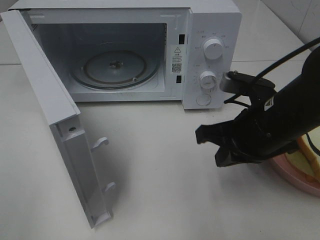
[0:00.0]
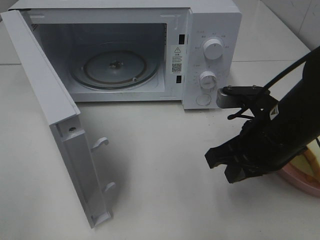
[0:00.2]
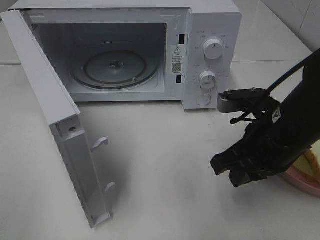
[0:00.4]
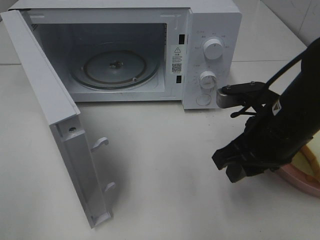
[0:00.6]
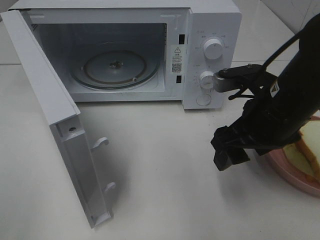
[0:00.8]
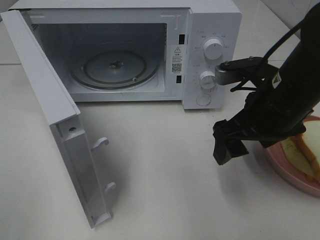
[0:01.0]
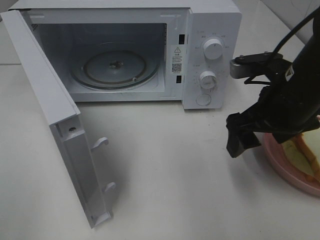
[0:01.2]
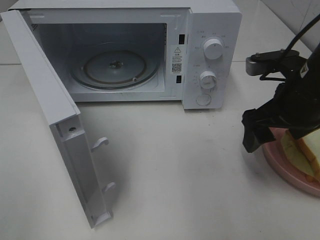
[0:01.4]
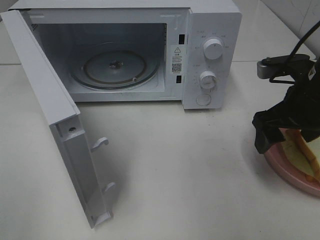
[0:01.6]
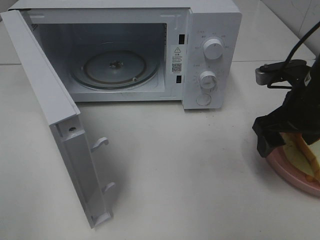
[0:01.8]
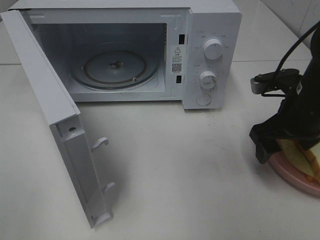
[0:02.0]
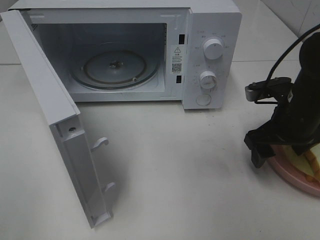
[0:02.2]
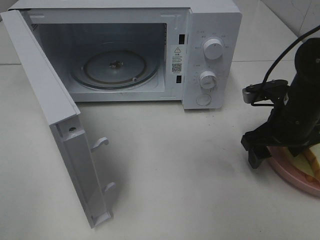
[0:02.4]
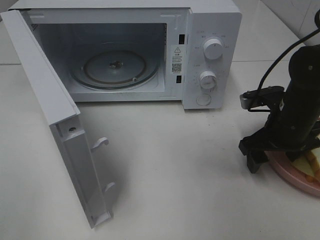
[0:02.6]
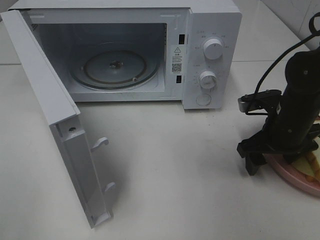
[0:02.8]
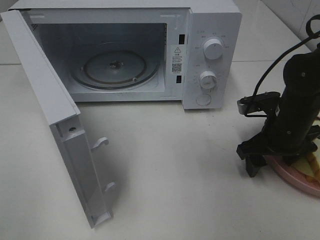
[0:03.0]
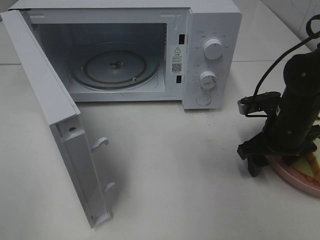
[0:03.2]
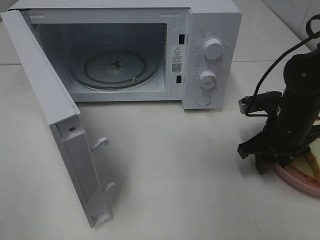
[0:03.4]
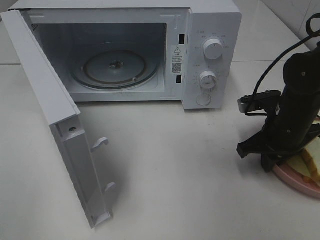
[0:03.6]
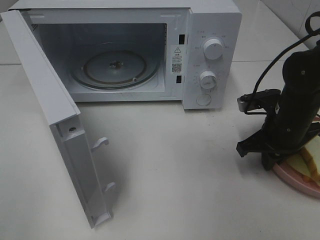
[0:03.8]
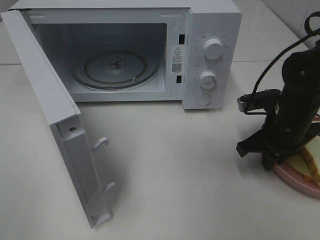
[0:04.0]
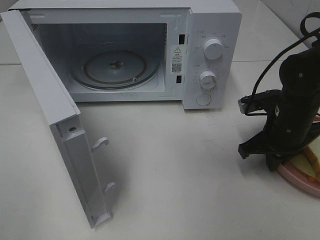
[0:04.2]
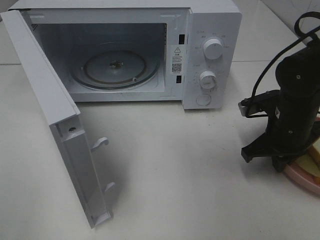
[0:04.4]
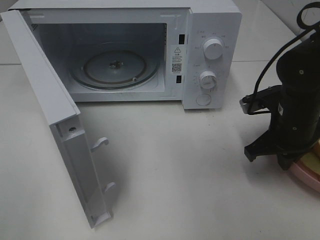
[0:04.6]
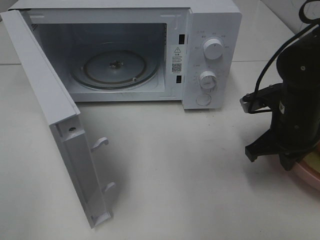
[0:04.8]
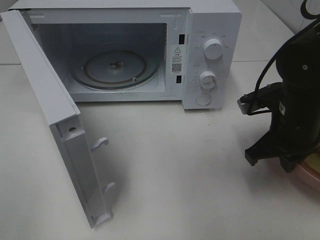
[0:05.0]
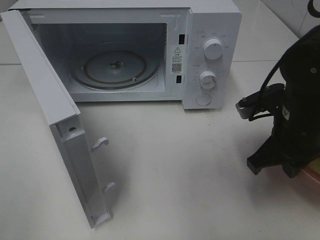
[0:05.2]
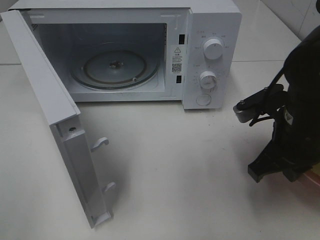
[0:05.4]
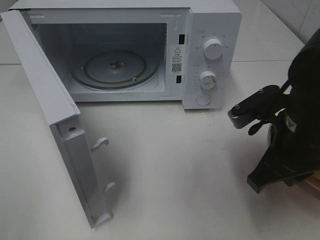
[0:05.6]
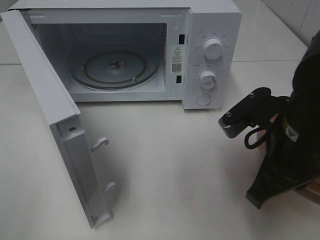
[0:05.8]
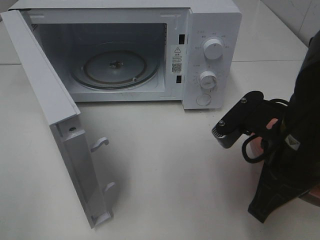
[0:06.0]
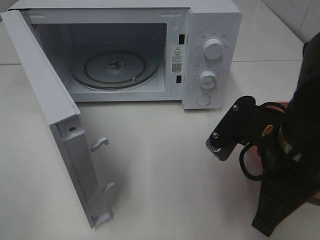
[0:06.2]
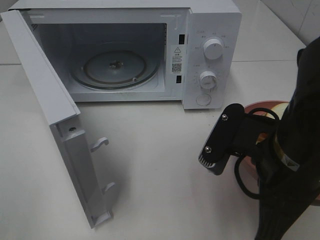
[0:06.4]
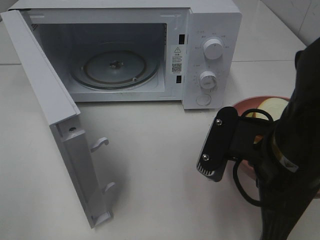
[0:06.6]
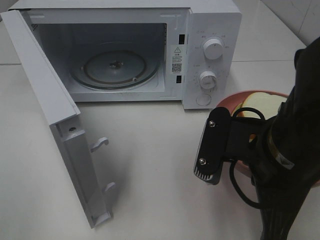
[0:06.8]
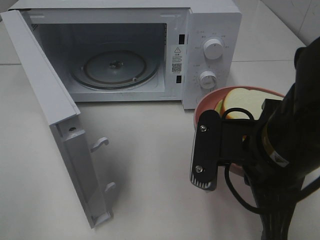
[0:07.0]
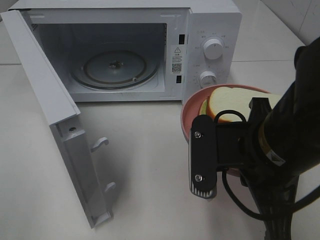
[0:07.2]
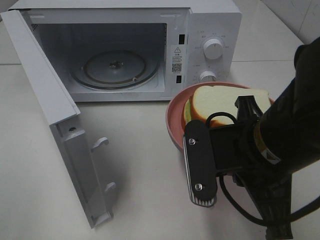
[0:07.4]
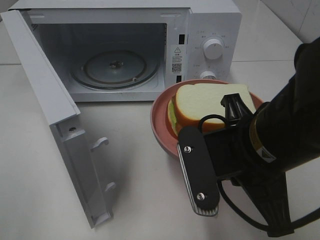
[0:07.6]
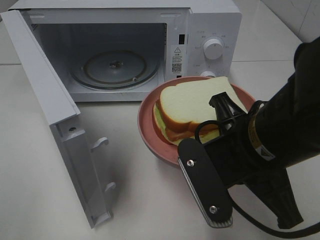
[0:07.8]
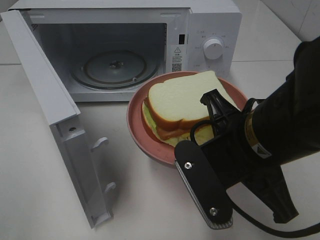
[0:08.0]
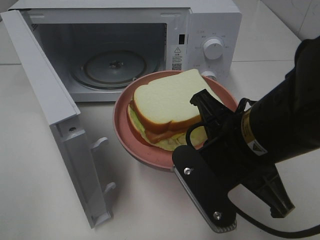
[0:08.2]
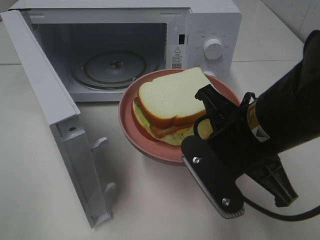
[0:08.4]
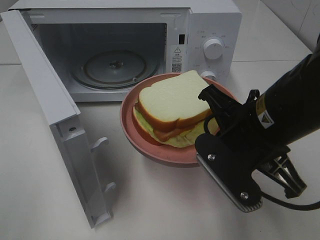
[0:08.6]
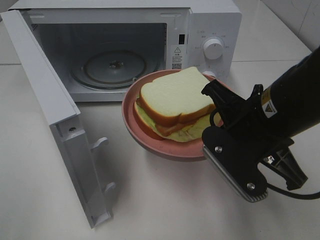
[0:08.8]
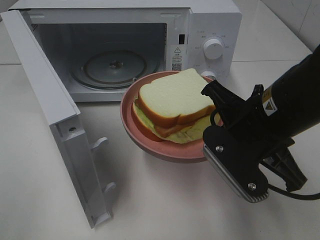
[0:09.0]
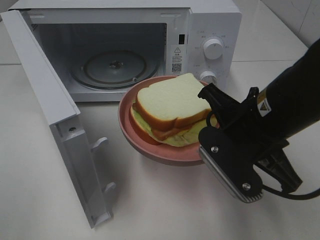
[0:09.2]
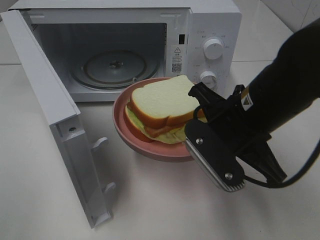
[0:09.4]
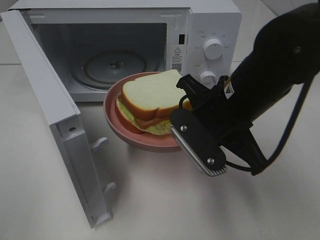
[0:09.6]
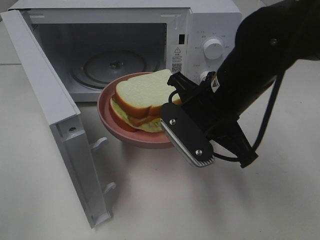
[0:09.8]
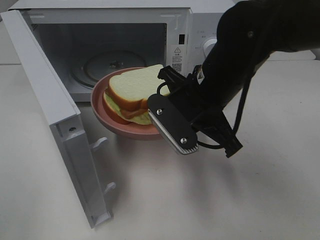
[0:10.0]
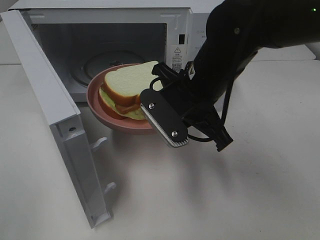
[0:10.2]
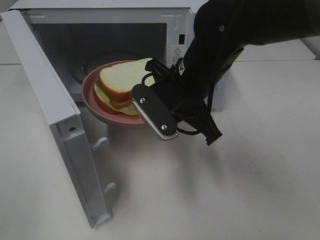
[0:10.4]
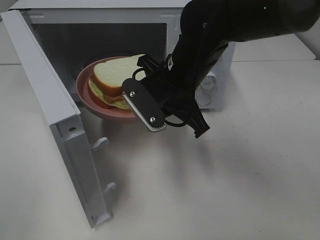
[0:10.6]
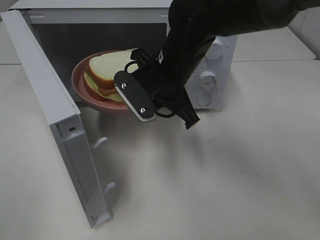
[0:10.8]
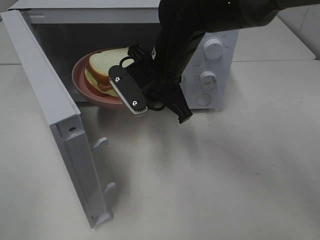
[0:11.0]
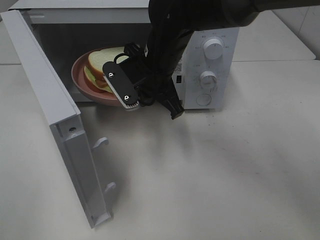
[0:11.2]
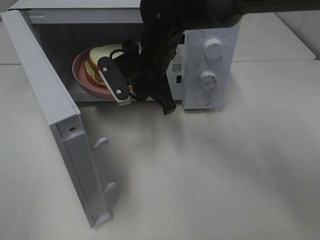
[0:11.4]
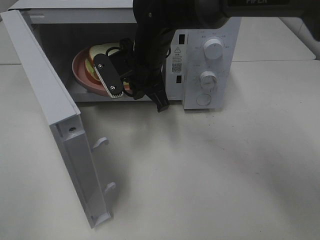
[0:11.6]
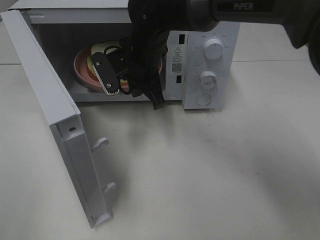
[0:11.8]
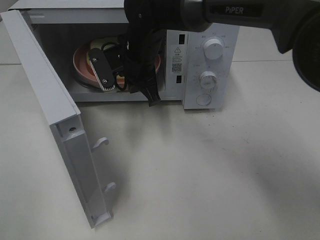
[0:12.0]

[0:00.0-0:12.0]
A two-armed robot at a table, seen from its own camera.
Task of the whole recording: Heat Sandwich.
Step, 0:00.0 to 0:04.8: Right hand: grab the plate with the sandwich.
0:00.0 to 0:01.6: The right gripper moves to the right, about 5 cm, and opens up.
0:01.6 to 0:03.0: The right gripper travels downward by roughly 10 cm.
0:03.0 to 0:04.4: The right gripper closes up.
0:04.4 to 0:06.0: The right gripper heads backward, upward and to the left, covering about 15 cm.
0:07.6 to 0:09.0: The right gripper shifts by some 5 cm.
0:09.0 to 0:10.4: The right gripper heads forward and to the left, covering about 10 cm.
0:10.4 to 0:12.0: The right gripper travels forward and to the left by approximately 15 cm.

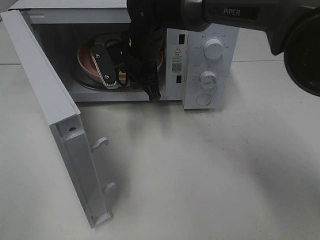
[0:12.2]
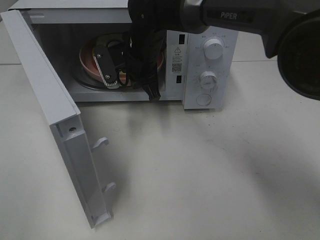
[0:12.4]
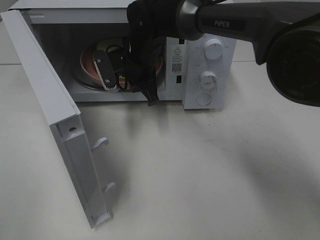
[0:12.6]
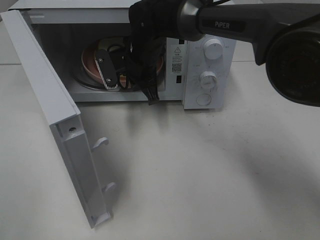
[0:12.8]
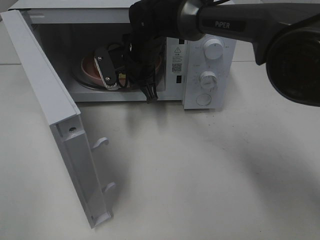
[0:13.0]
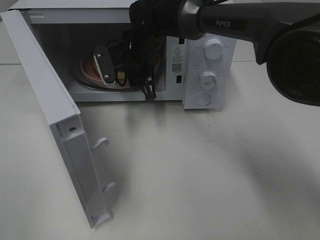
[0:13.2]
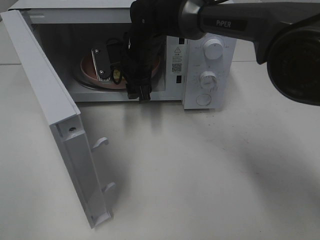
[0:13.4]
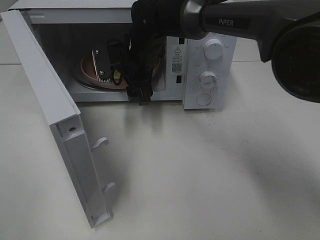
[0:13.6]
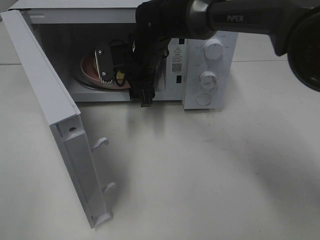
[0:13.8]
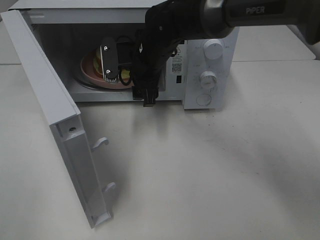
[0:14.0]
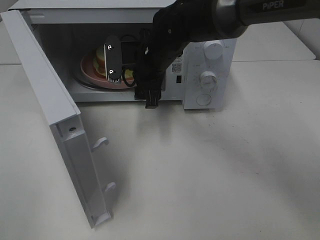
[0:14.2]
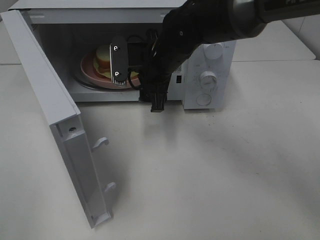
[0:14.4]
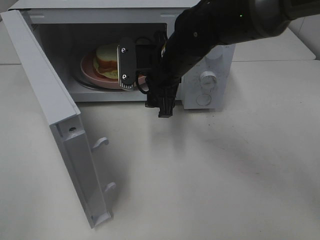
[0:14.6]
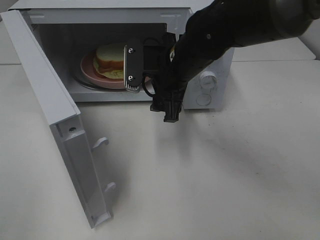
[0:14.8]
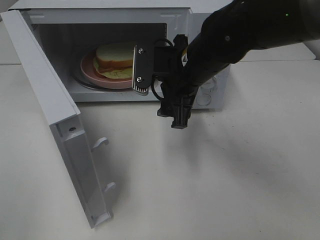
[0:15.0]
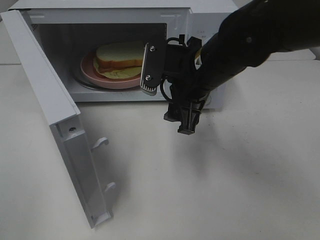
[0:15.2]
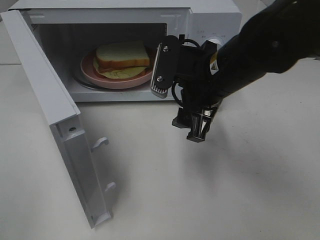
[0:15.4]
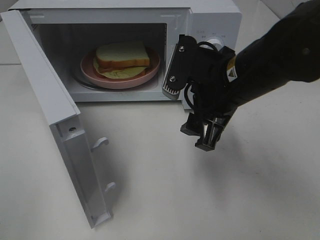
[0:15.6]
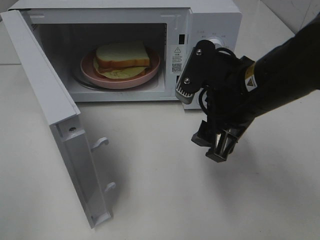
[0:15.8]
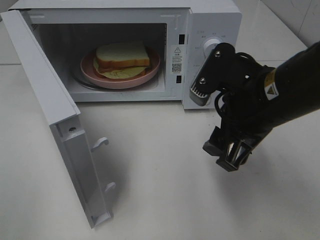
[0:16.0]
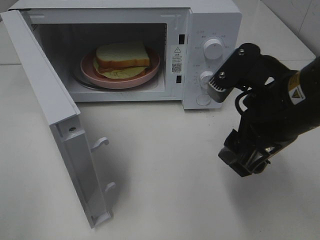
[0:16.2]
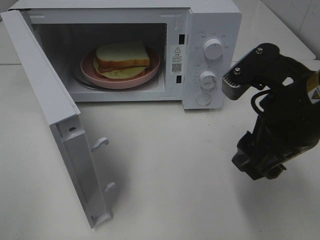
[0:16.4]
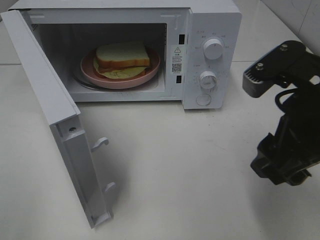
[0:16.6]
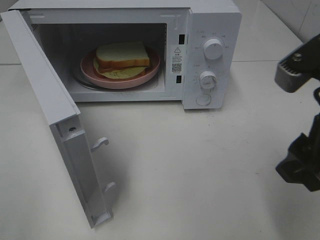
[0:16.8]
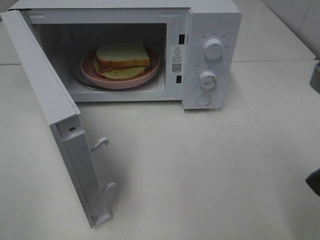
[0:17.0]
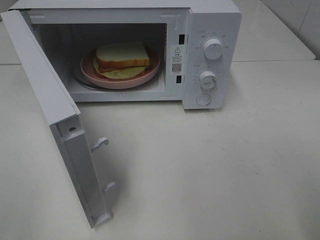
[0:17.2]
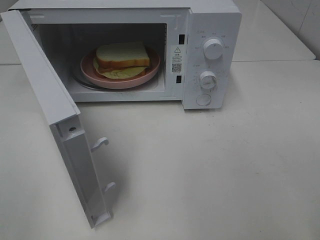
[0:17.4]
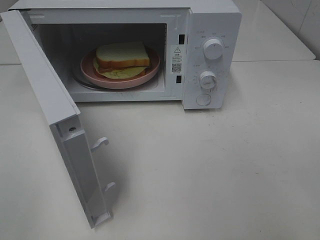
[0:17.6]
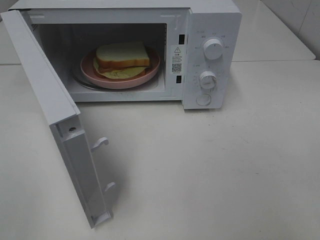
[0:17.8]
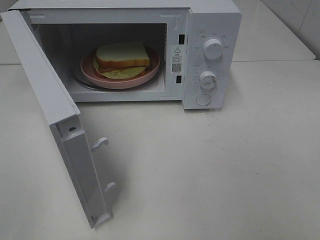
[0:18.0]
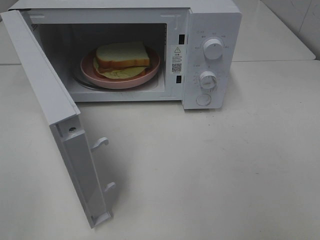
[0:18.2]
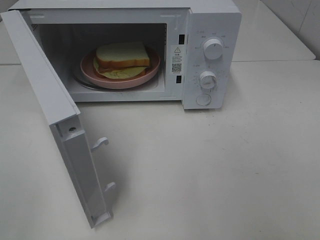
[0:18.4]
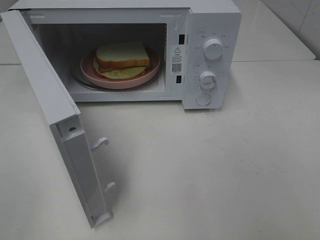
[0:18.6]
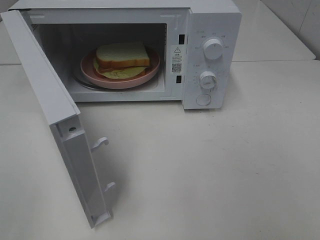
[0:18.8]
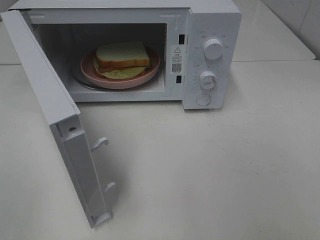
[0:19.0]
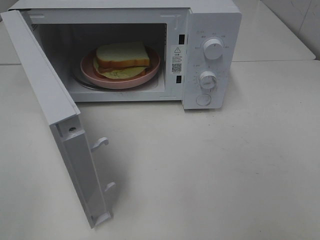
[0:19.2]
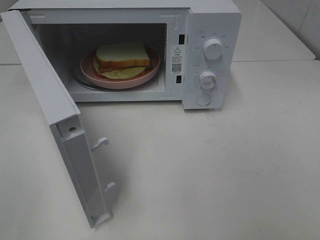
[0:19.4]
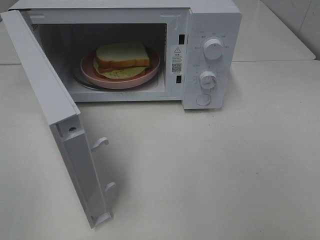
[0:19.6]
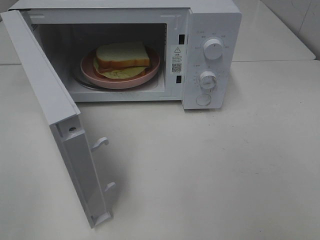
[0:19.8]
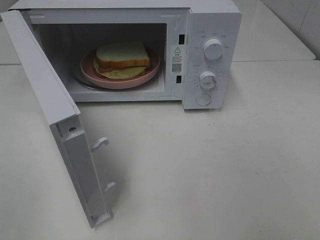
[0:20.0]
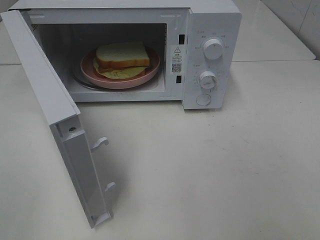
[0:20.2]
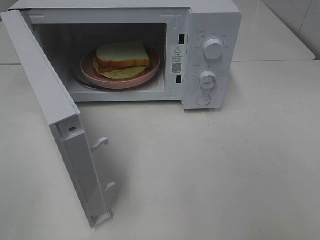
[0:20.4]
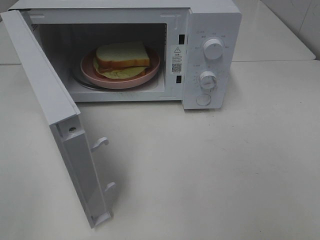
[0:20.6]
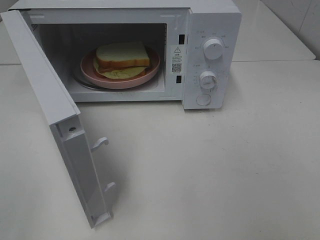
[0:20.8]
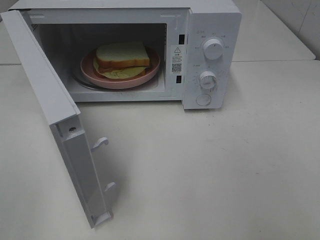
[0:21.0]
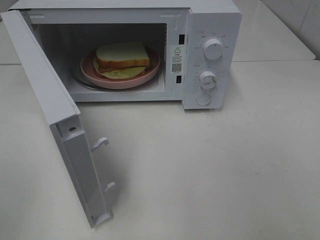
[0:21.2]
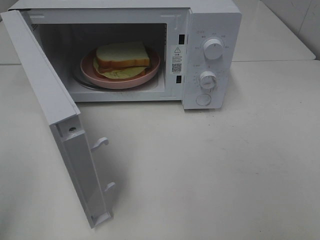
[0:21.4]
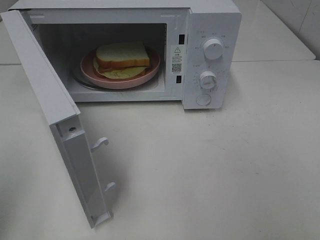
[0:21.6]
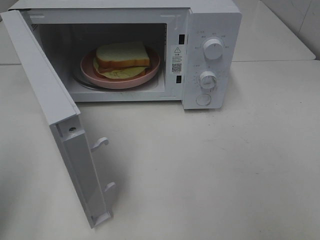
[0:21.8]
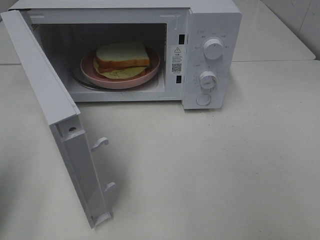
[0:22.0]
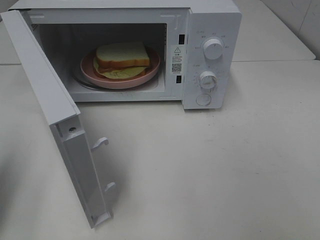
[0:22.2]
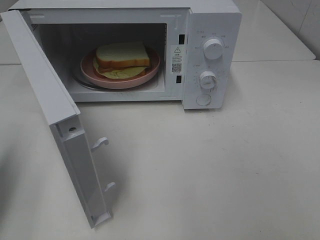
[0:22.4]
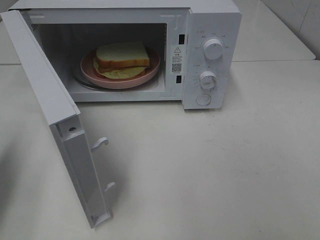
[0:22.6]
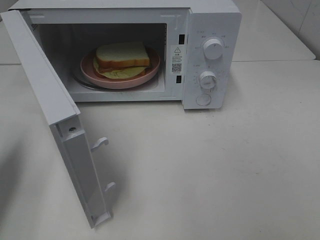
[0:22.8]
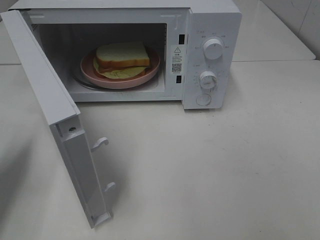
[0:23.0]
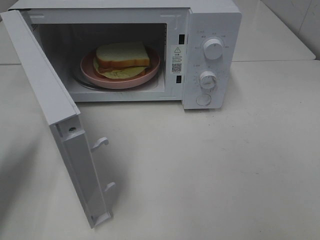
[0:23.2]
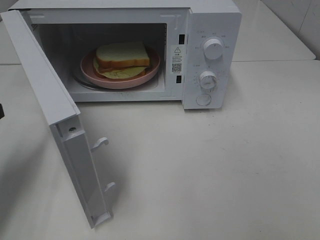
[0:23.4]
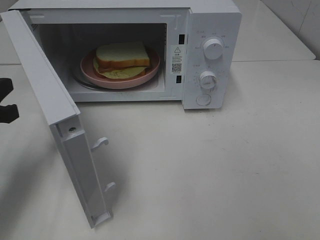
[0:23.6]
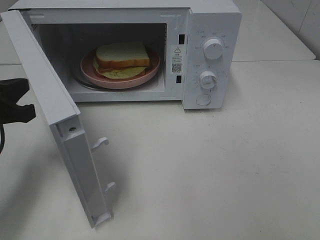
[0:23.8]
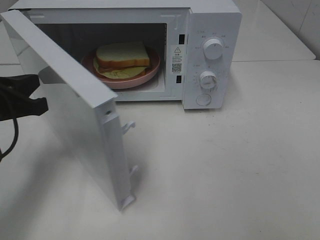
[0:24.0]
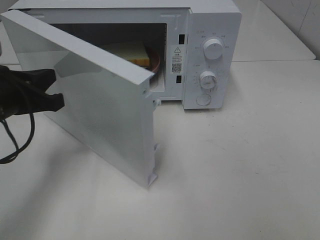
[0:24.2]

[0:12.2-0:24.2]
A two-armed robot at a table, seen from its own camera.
Task of the whole recording: Heat Sandwich.
0:12.2 to 0:13.8: The right gripper opens up.
0:13.8 to 0:15.2: The right gripper travels backward and to the right by some 15 cm.
0:15.2 to 0:16.6: The right gripper heads backward and to the right, covering approximately 15 cm.
0:16.6 to 0:18.2: The right gripper shifts about 15 cm backward and to the right.
0:21.2 to 0:22.6: The left gripper shifts approximately 20 cm forward and downward, and closes.
0:22.6 to 0:24.2: The left gripper shifts some 10 cm to the right and forward.
